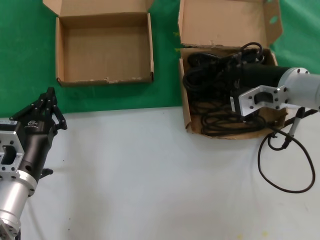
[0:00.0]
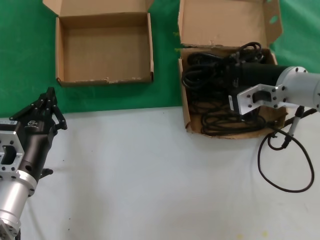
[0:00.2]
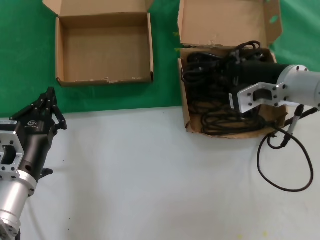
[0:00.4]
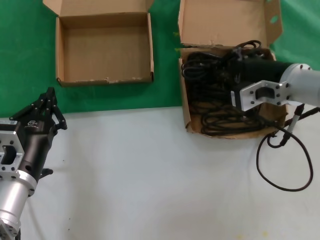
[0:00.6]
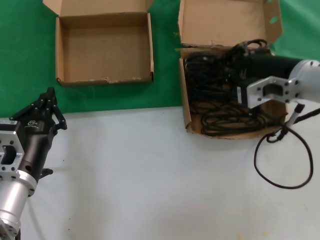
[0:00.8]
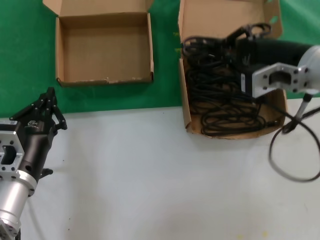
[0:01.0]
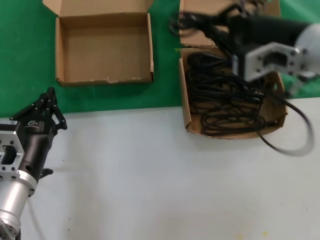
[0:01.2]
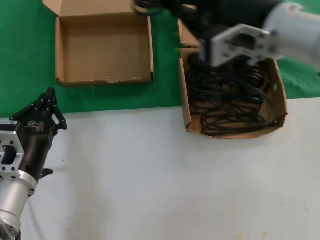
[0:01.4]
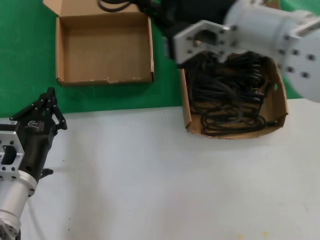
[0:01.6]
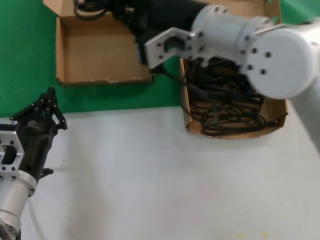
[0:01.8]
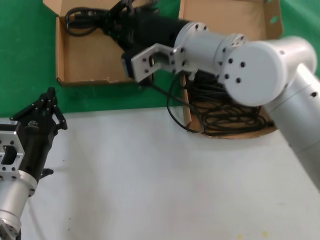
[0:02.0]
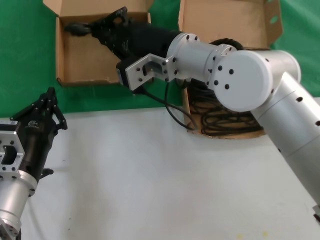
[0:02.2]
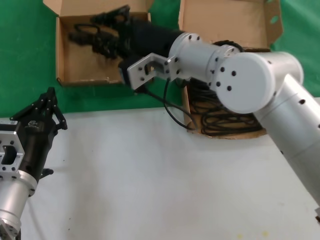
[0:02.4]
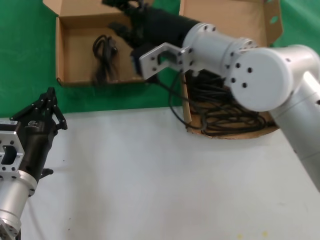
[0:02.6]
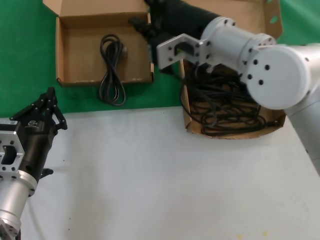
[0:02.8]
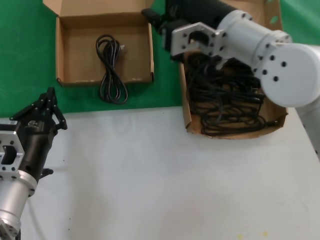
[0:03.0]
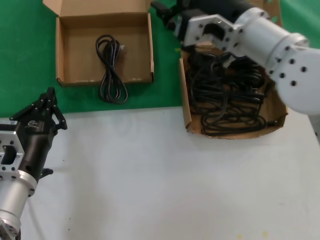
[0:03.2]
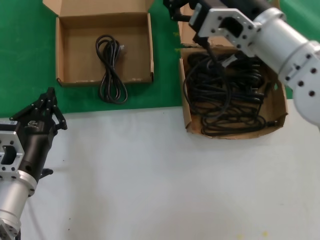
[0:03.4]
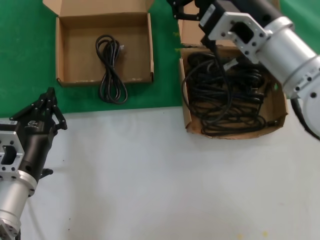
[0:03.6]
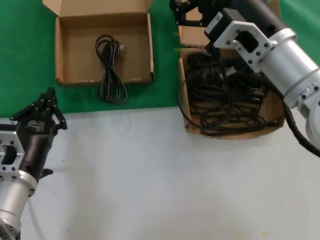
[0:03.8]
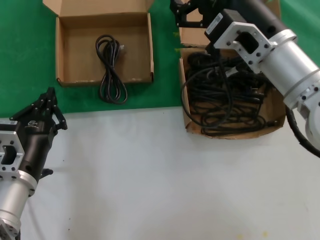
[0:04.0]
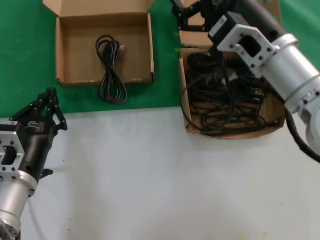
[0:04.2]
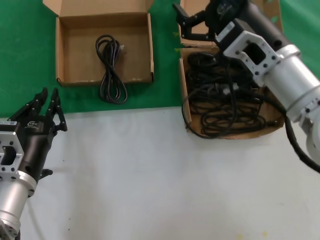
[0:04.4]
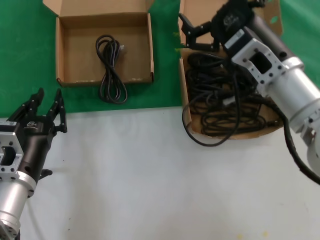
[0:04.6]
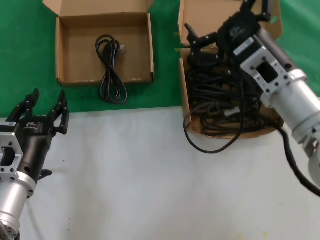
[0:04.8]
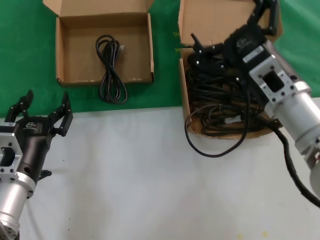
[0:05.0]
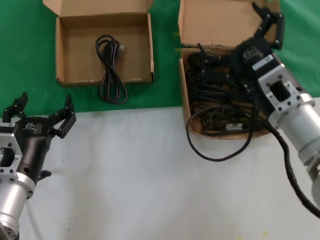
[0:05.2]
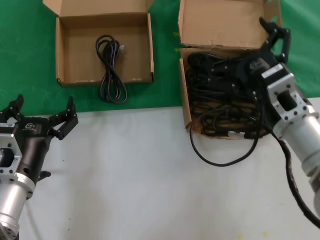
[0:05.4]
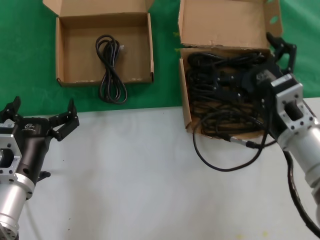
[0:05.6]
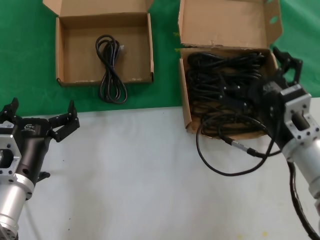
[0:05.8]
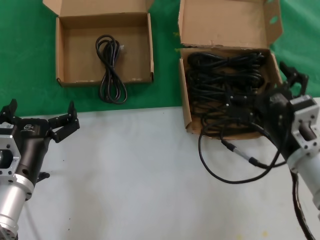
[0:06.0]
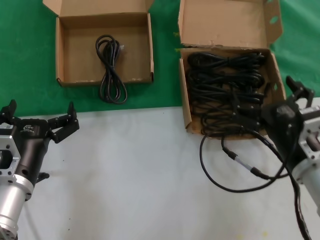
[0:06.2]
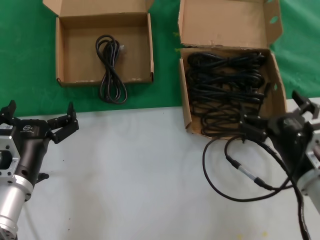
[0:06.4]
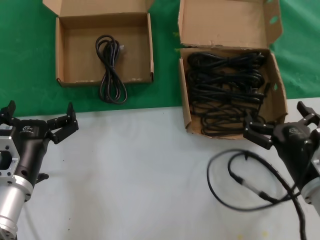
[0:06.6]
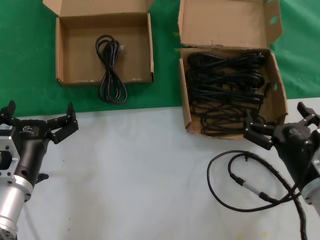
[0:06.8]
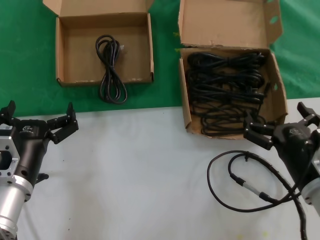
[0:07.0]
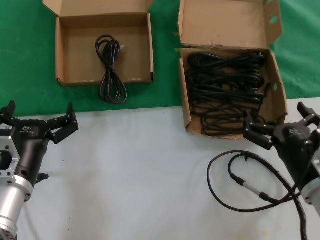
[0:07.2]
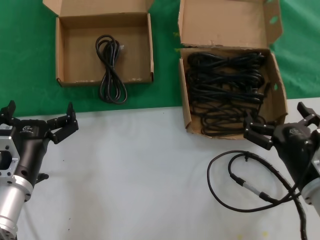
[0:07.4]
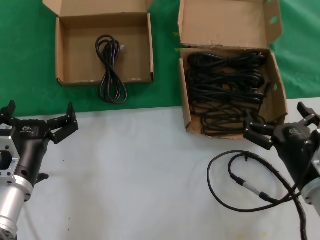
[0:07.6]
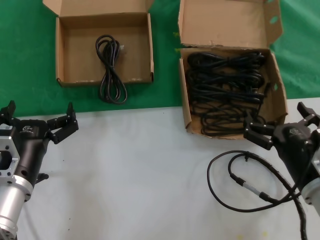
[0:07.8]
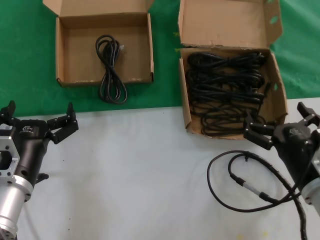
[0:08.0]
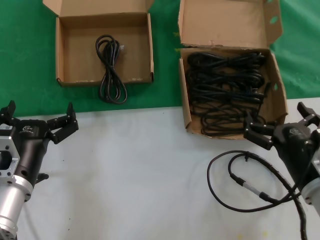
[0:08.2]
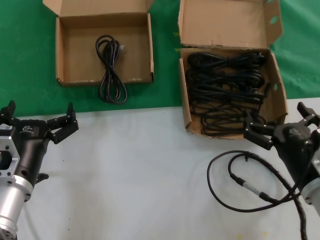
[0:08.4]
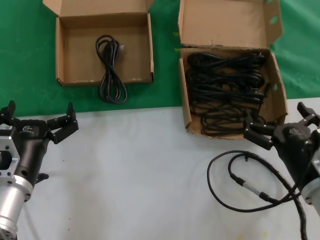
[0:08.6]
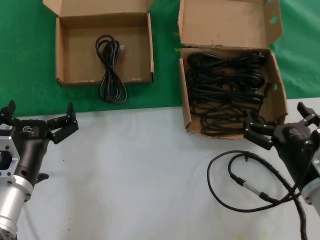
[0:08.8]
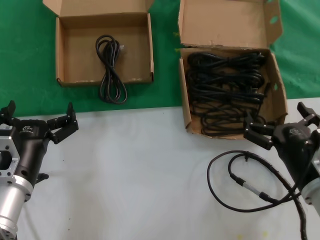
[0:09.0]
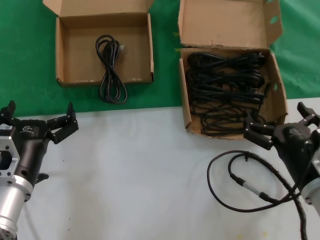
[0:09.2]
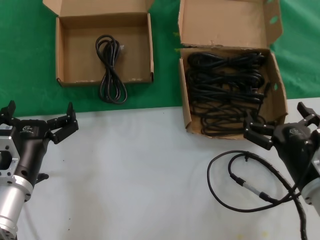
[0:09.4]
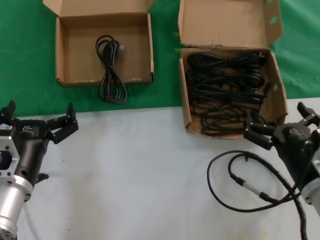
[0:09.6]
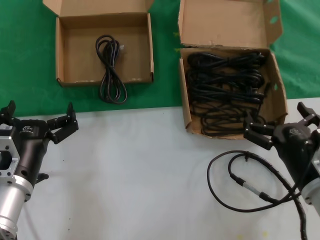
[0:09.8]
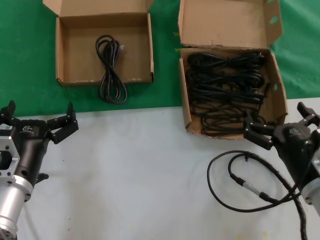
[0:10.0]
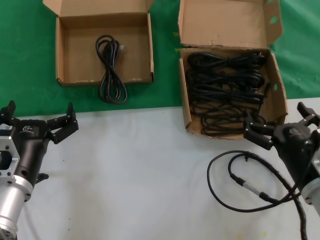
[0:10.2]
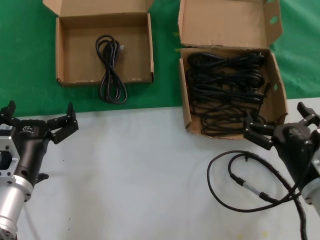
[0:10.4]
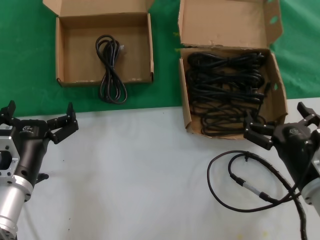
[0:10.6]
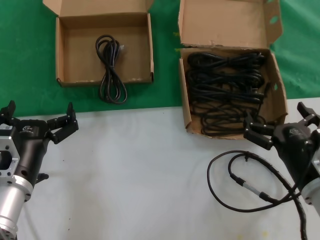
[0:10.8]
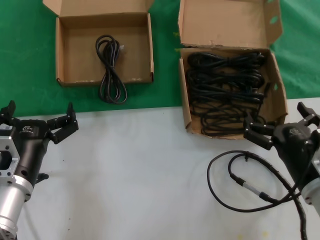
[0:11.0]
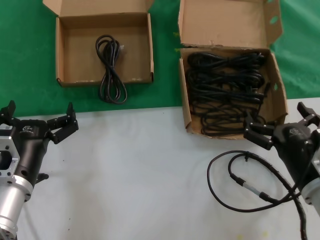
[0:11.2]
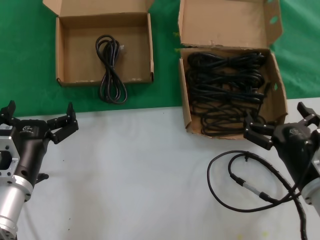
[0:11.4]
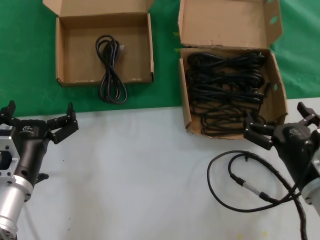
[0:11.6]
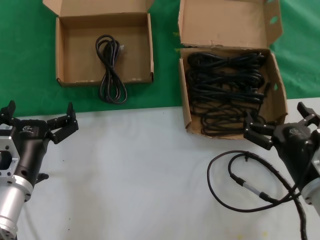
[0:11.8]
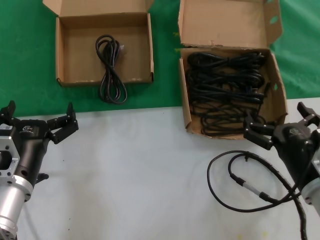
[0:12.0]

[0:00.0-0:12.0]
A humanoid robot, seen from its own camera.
Task of the whole recording: take the parts from the box containing them and put them into an empty box.
Step, 0.2 to 2.6 s: Place the data cable in the another box.
0.0 to 1.6 s: The right hand heads upward and to the left, covering some 15 cm.
3.0 to 4.4 s: The right hand travels to the right and backward by about 10 cm.
4.4 to 6.0 s: The right hand travels downward, to the right and backward by approximately 15 cm.
6.0 to 7.6 s: The right hand ends up about 5 cm from where it was.
7.6 to 12.0 s: Both hands stay about where they are.

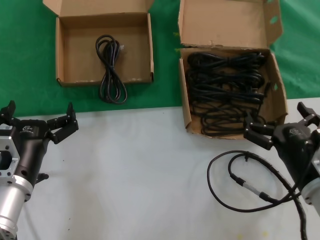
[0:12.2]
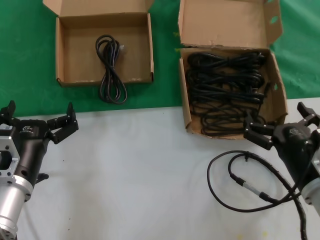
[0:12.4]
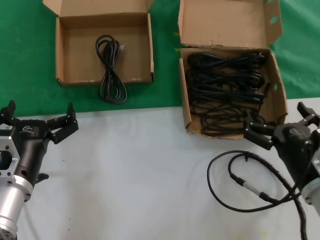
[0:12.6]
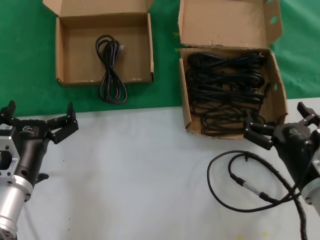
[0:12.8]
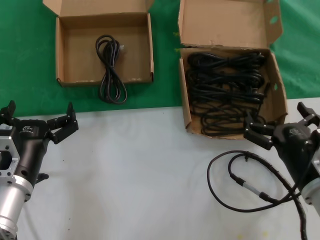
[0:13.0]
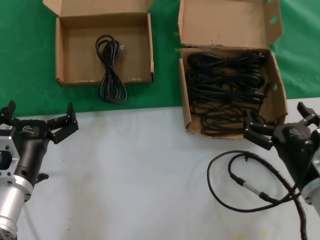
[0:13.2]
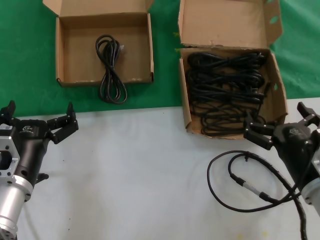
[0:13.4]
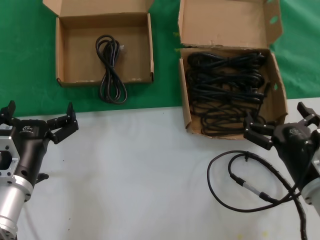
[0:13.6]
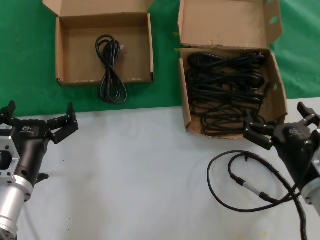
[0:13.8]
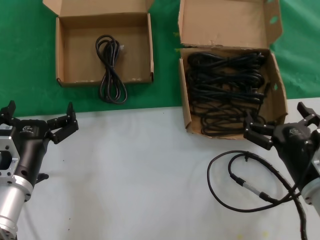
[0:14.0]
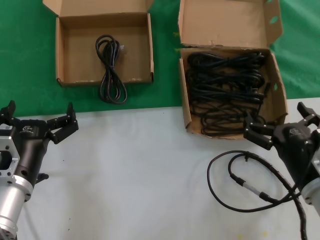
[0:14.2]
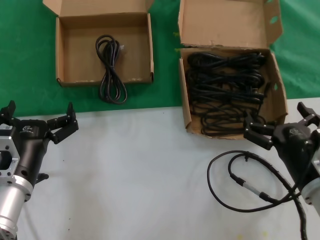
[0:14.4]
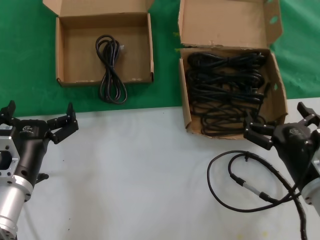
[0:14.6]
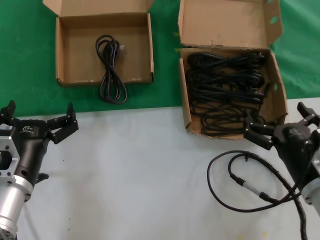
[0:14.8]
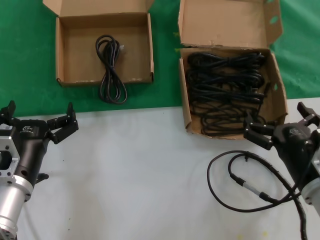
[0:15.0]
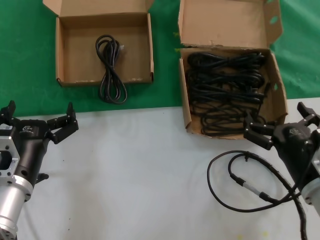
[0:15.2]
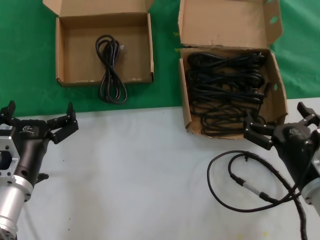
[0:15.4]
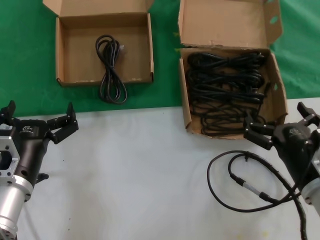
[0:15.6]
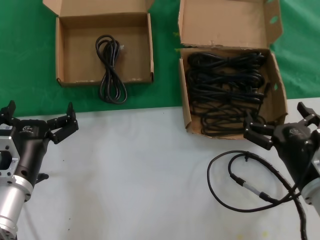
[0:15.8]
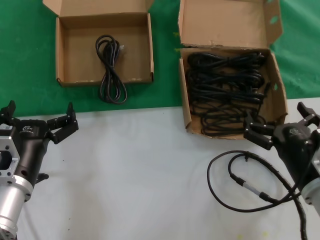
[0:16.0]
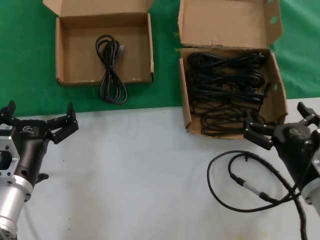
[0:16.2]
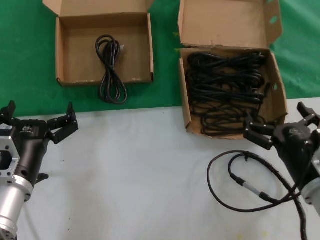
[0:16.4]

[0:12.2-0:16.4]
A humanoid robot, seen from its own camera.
Task of the whole recording: take the parts from the box containing them and put them into an empty box.
12.2 to 16.4 s: Both hands stay about where they are.

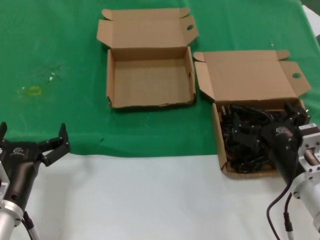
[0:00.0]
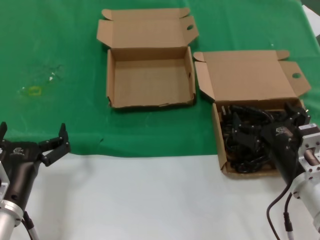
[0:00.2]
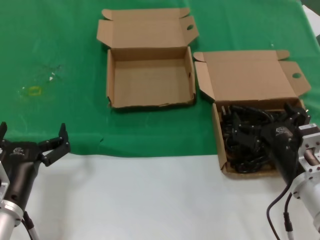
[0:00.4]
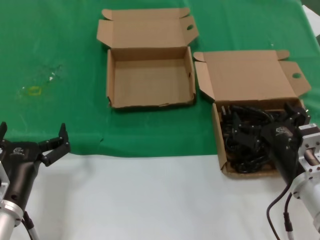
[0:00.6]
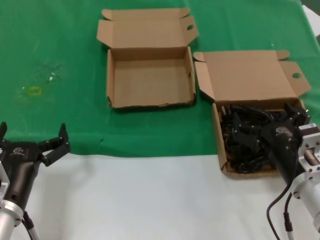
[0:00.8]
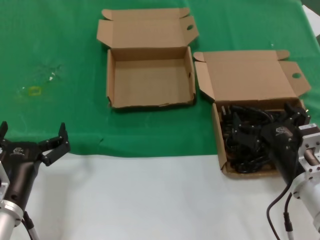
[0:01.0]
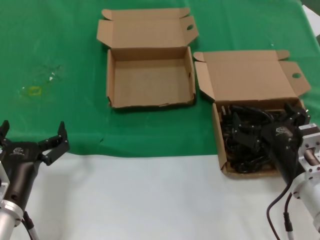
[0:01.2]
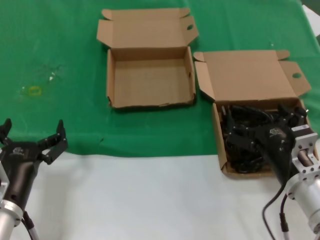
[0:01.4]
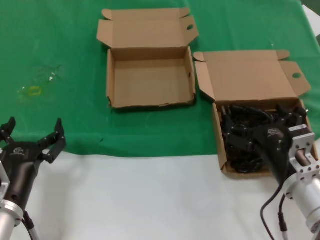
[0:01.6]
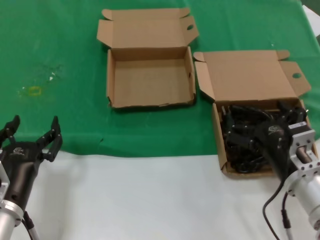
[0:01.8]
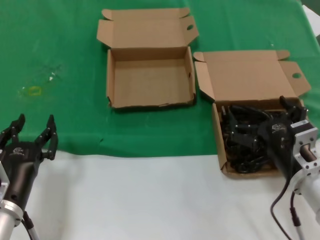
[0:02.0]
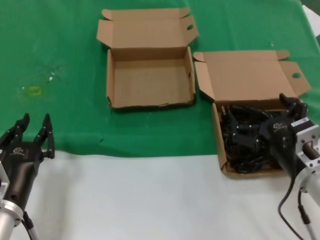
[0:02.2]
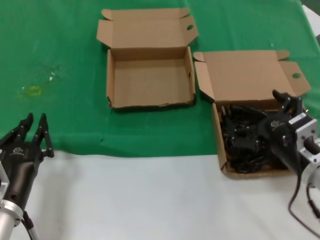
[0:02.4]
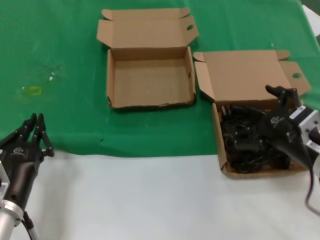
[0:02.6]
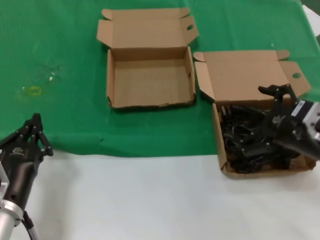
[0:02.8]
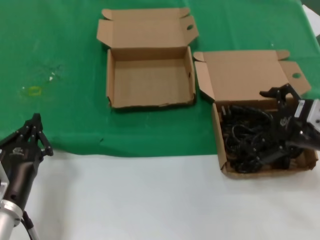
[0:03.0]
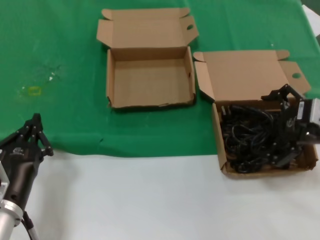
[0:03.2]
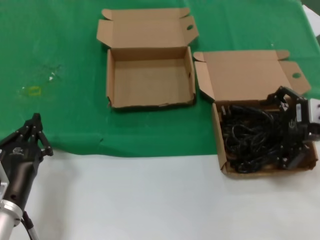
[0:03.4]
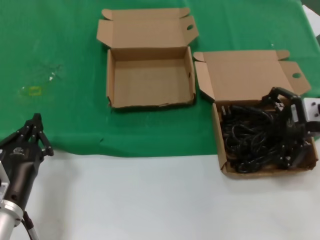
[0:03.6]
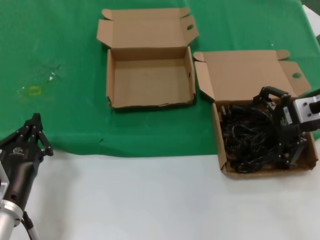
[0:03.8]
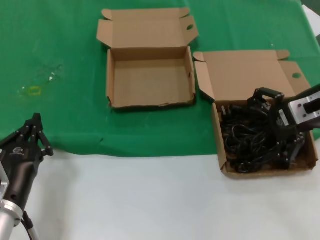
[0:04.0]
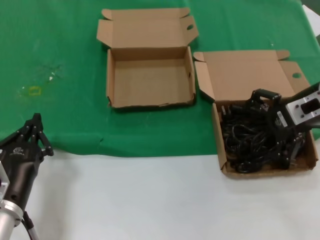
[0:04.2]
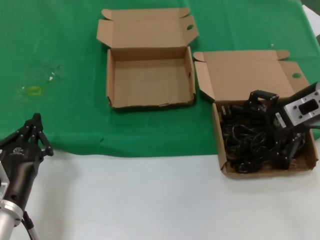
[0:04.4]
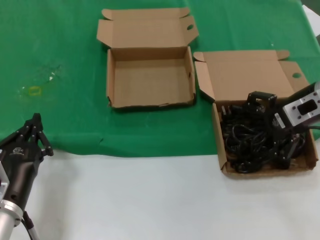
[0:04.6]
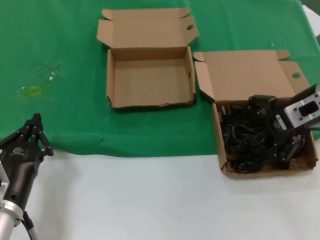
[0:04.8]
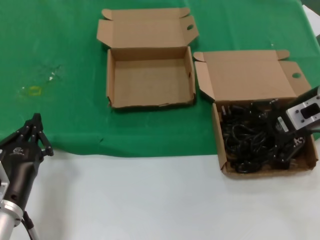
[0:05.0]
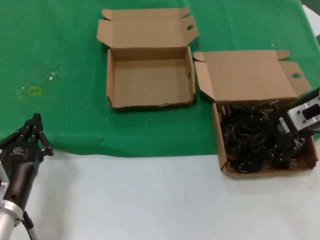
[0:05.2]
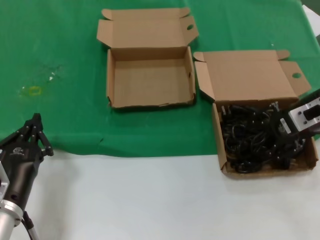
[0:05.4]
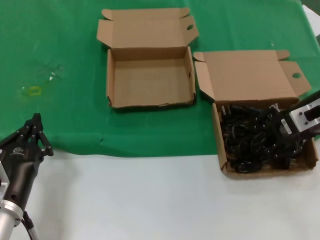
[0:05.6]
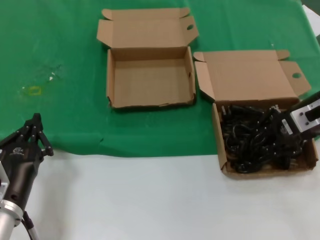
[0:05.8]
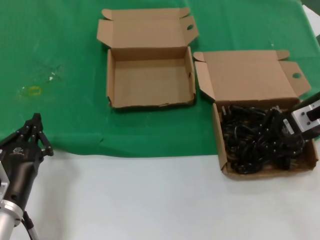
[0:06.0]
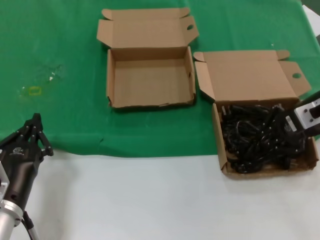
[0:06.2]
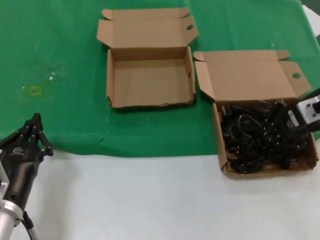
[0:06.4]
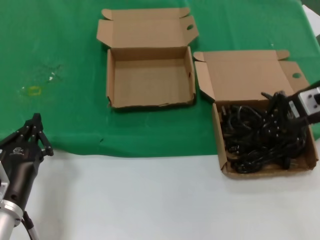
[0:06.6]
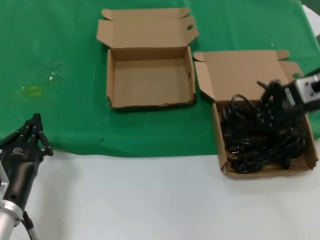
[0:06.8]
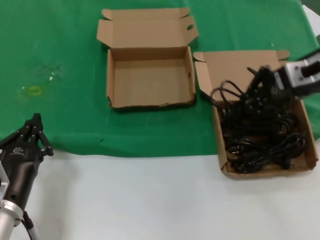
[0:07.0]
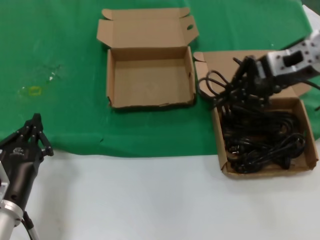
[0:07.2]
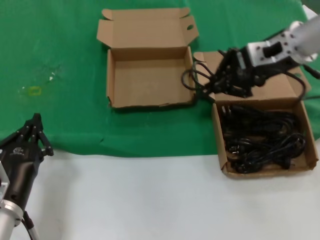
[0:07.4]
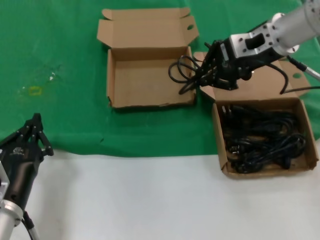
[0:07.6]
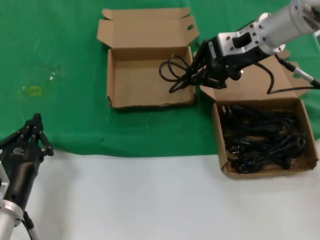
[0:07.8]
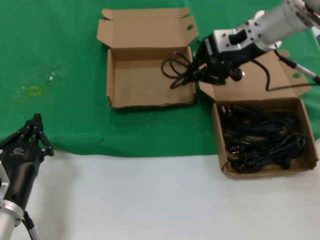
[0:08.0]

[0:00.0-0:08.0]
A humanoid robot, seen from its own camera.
Task of the whole recording: take the parts from the box containing them and put them into an empty box.
Step, 0.0 to 6.2 s: Grasp the data cable.
0.0 to 1.6 s: Both hands stay about where they are.
1.6 to 3.2 s: The right hand is displaced upward and to the right by approximately 20 cm.
3.2 to 4.8 s: The right hand heads forward, covering approximately 10 cm.
4.8 to 6.4 s: The hands stay close to where they were, moving slightly.
6.4 to 8.0 s: The right hand travels to the left, forward and upward by approximately 20 cm.
